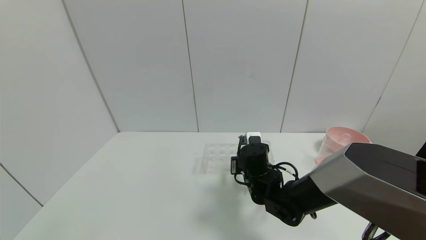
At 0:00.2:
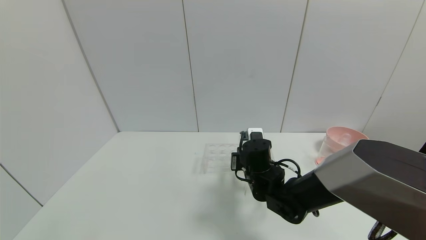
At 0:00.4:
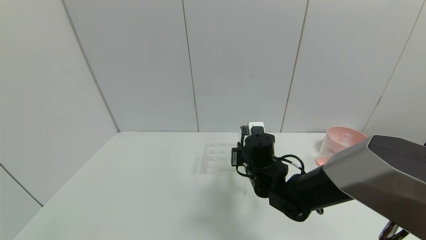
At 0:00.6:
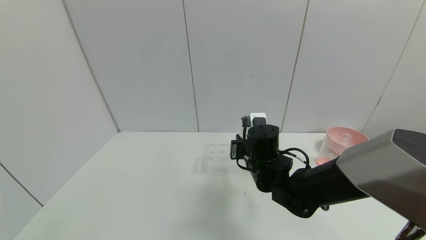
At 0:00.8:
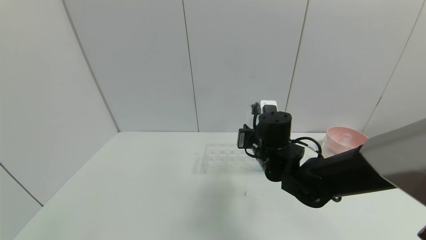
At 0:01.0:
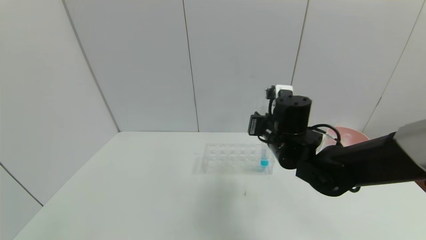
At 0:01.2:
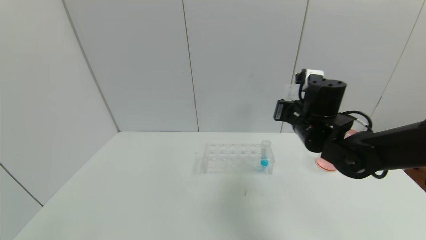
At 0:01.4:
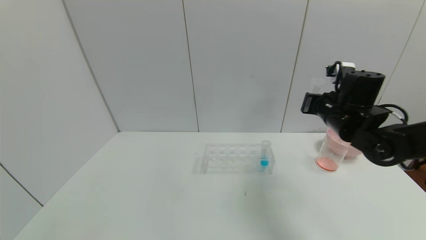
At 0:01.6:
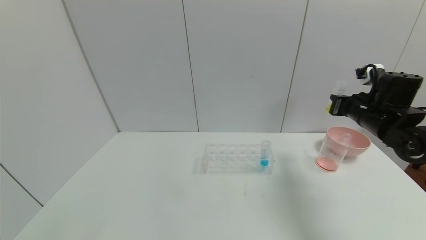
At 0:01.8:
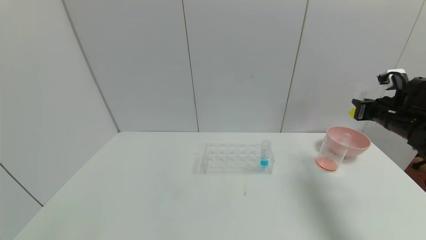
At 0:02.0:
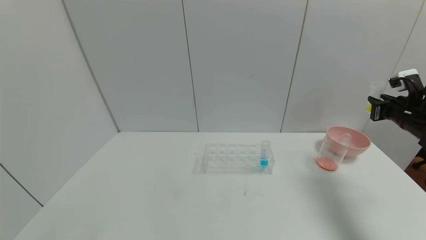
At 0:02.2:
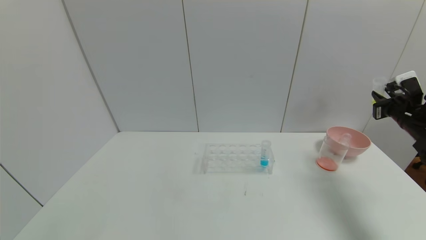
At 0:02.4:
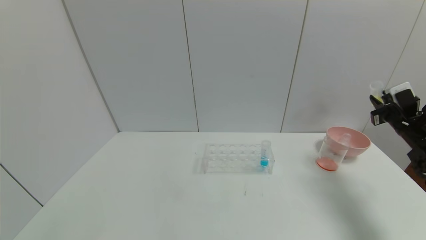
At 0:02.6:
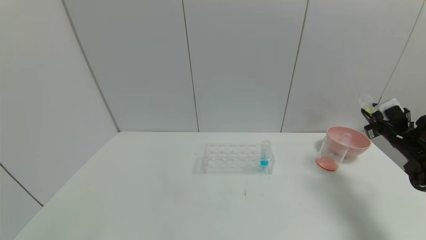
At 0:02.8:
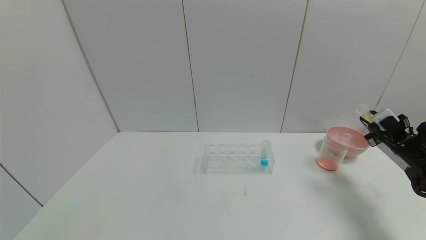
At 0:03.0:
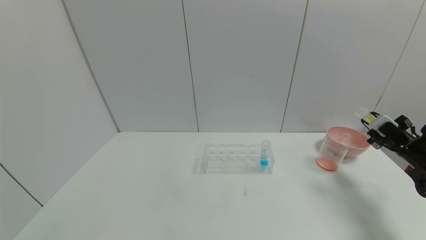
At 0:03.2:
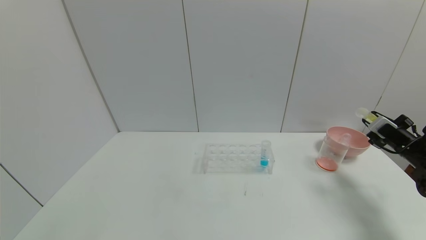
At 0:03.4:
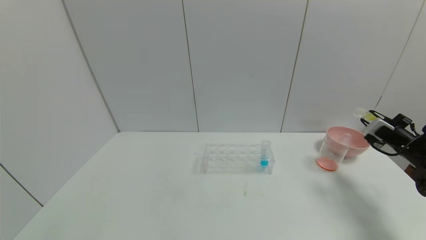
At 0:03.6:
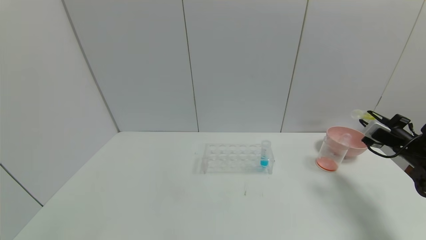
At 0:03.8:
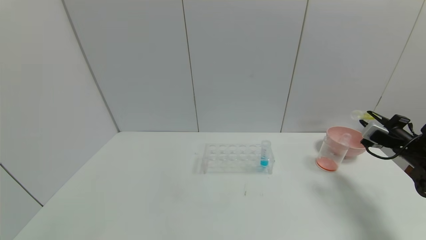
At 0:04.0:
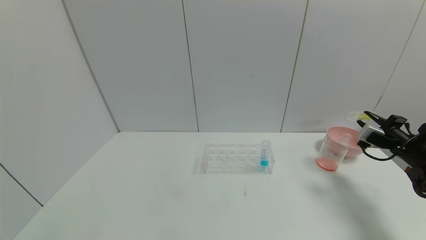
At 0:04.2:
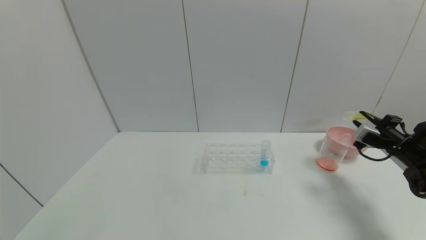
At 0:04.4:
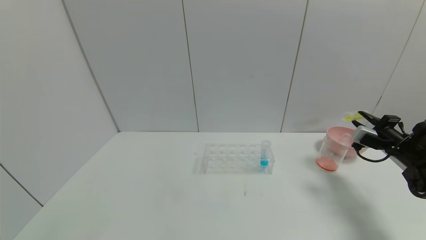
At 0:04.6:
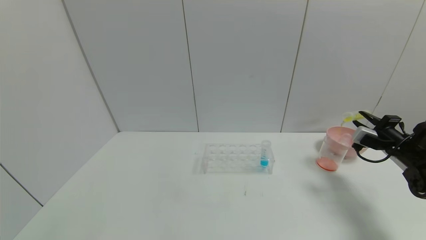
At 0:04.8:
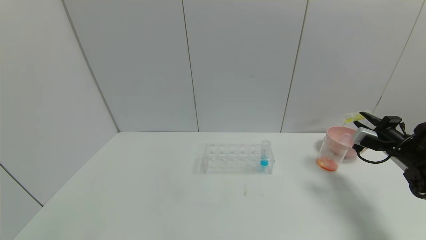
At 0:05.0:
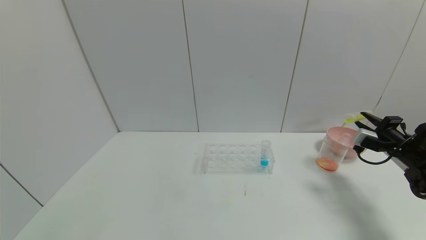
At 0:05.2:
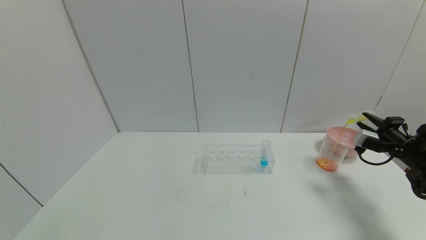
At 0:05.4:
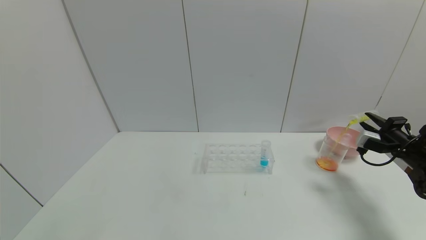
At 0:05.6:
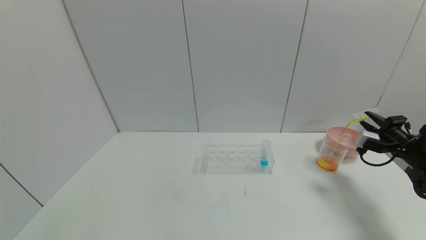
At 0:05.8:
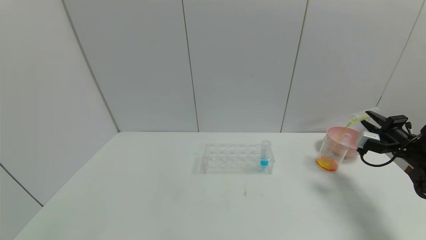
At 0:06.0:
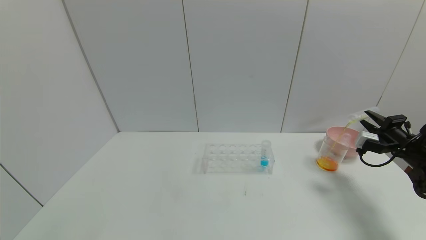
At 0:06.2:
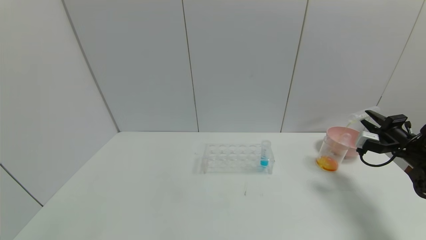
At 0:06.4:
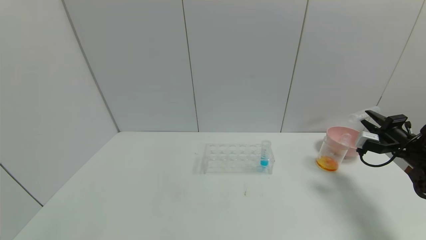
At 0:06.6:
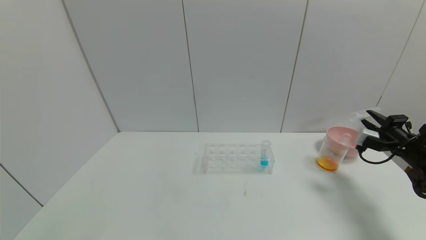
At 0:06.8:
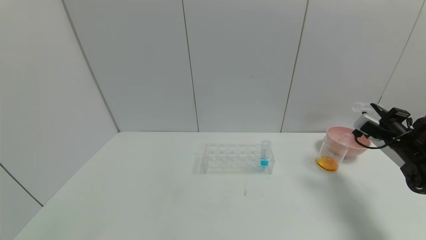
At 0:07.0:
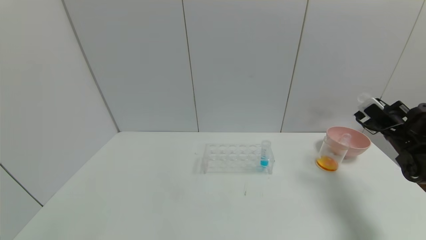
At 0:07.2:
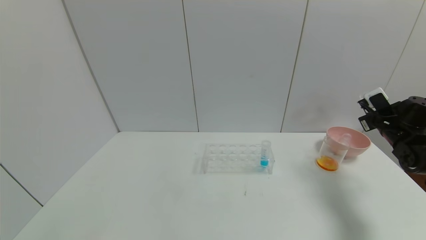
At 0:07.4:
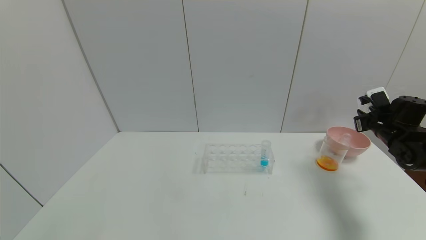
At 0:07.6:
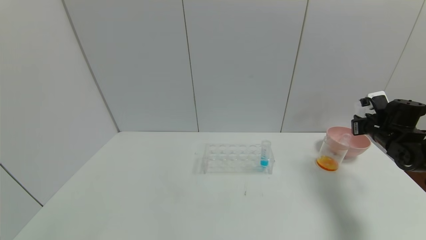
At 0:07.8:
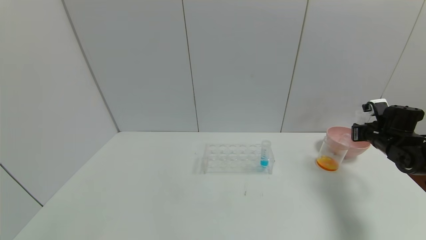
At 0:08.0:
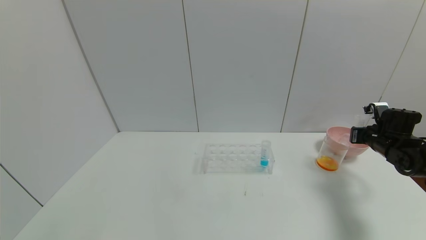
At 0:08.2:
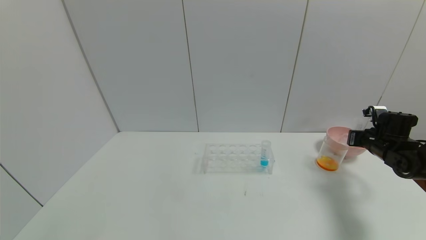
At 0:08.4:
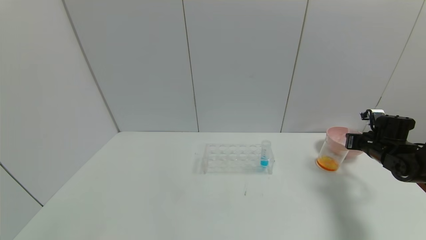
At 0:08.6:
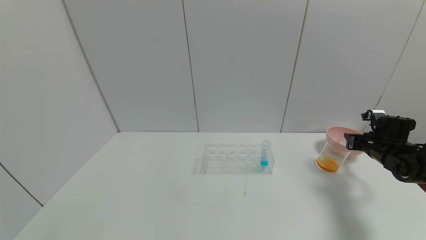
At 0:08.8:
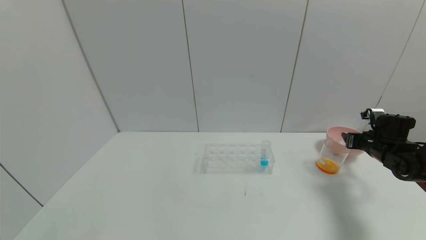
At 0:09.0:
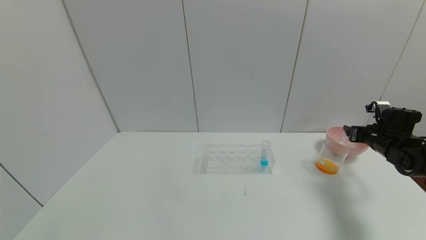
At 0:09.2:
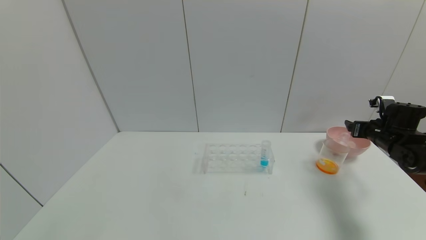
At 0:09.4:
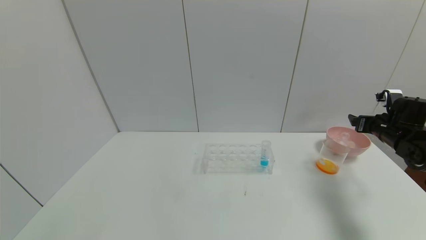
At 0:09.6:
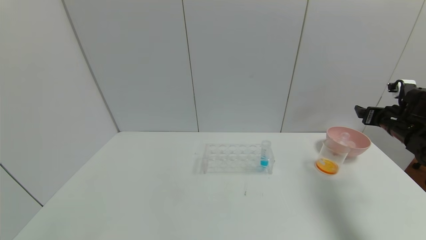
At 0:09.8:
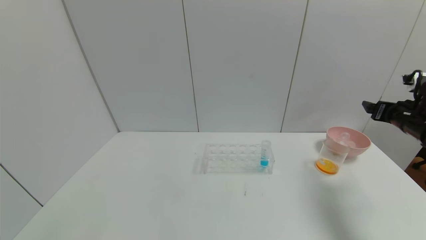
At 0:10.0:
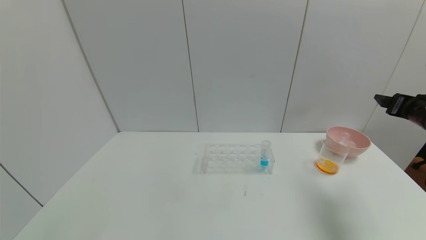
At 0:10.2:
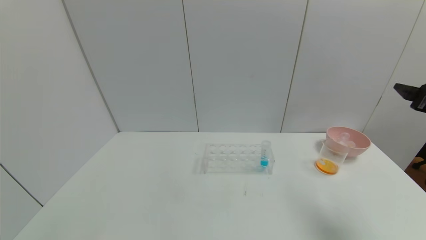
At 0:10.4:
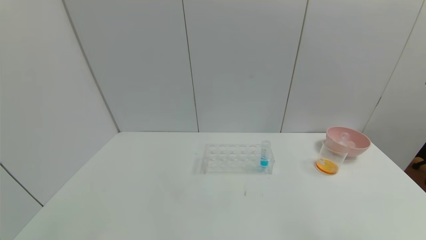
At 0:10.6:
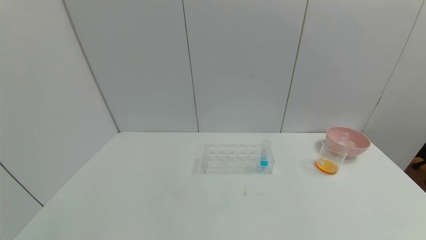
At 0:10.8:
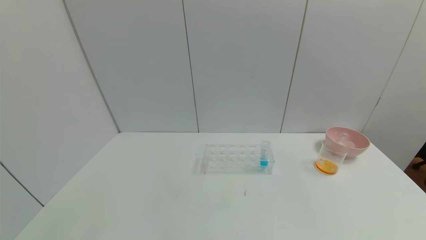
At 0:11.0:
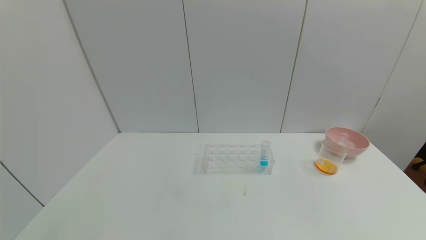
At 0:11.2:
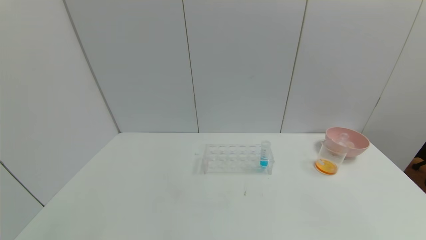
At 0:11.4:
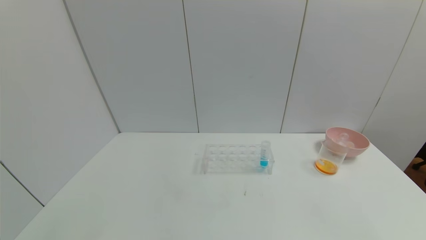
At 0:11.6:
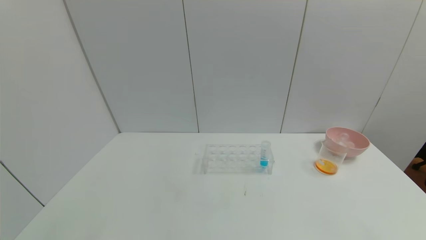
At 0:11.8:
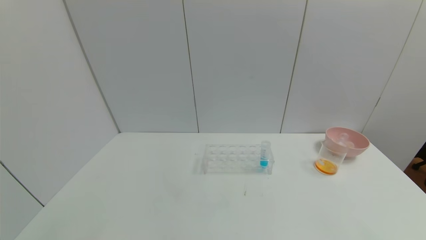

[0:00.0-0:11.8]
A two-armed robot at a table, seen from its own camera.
Task of the whole recording: pick up the test tube with yellow pigment and the test tube with red pigment by grippers and pour them into the beaker.
Step, 0:00.2 to 0:06.4: Pour the yellow reagent into the graduated cylinder with the right gripper.
Step, 0:06.6 to 0:08.8: Place the test tube into the bowl with the right gripper.
0:00.0 to 0:01.4: The right gripper travels to the right and upward by some 25 cm.
0:01.4 to 0:03.0: The right gripper travels to the right and downward by about 25 cm.
0:04.4 to 0:06.0: The grippers stay close to where they were, moving slightly.
0:06.0 to 0:07.4: The right gripper changes place by approximately 5 cm.
0:07.4 to 0:08.8: The right gripper heads downward, covering about 5 cm, and opens.
0:08.8 to 0:10.4: The right gripper is displaced backward and upward by roughly 30 cm, and opens up.
